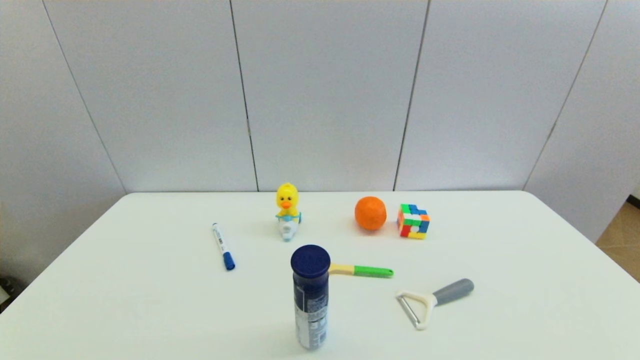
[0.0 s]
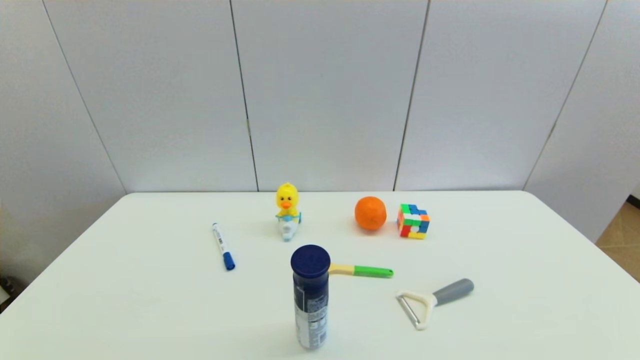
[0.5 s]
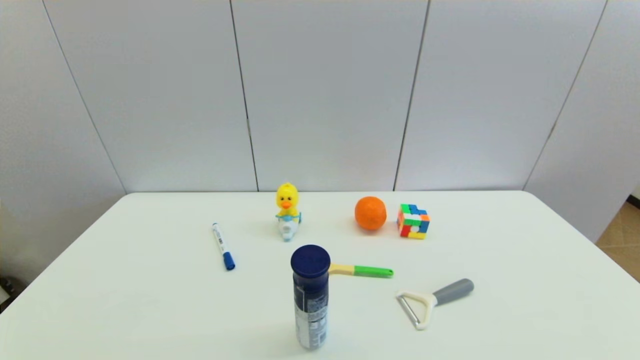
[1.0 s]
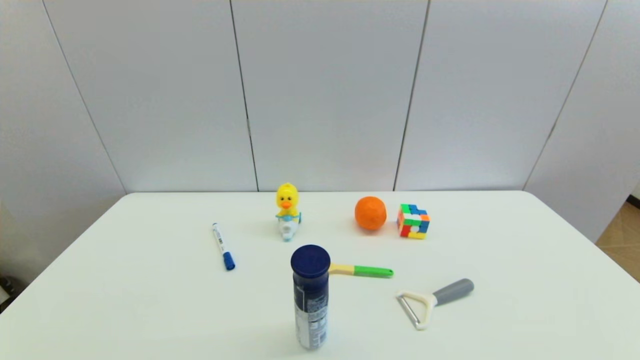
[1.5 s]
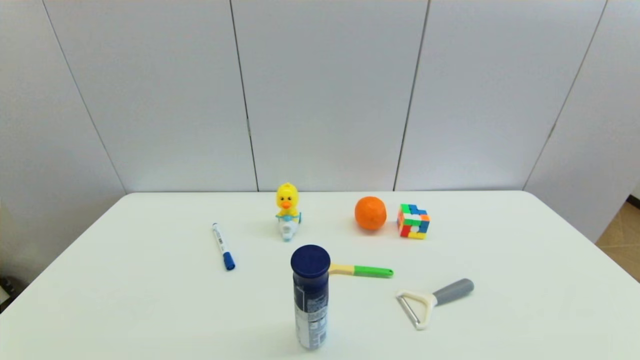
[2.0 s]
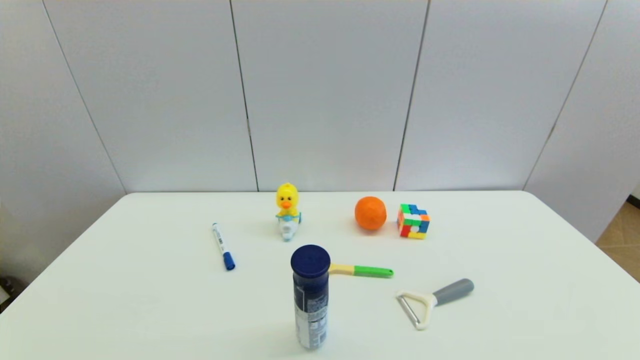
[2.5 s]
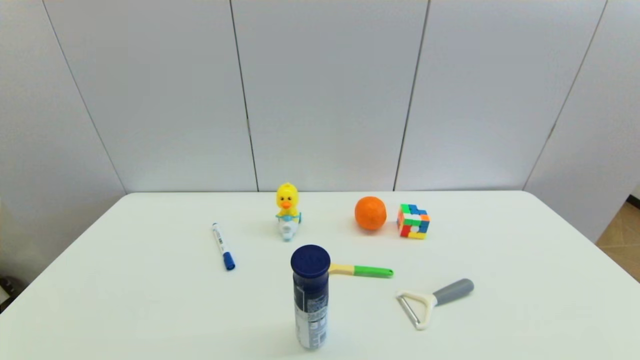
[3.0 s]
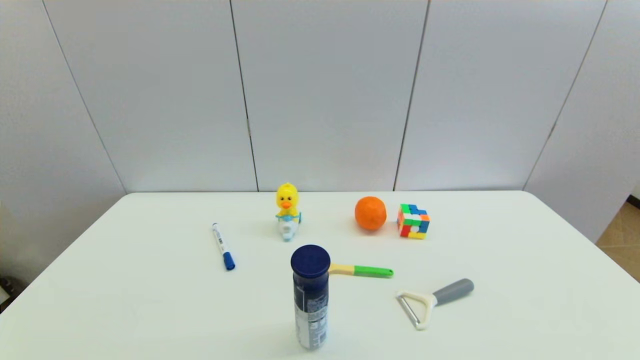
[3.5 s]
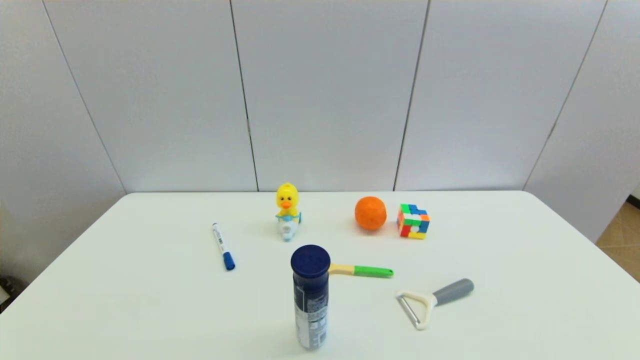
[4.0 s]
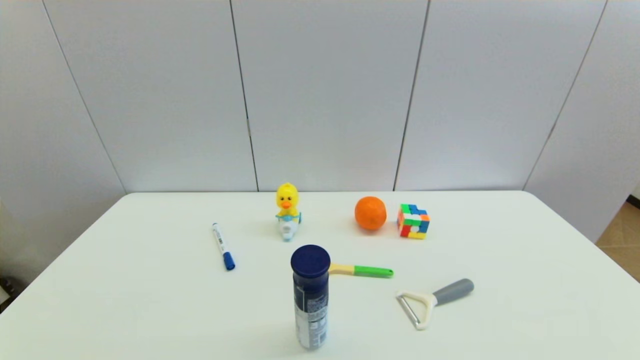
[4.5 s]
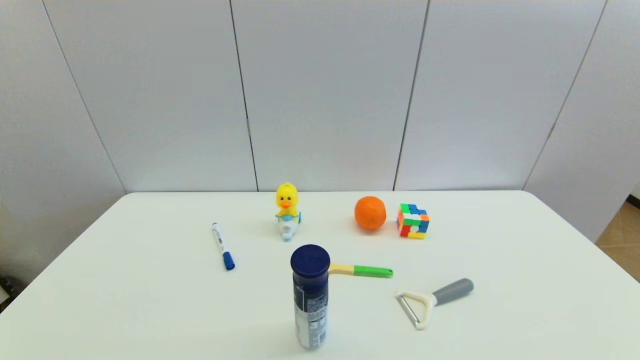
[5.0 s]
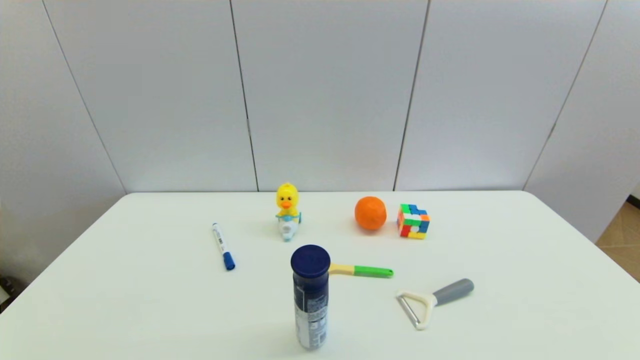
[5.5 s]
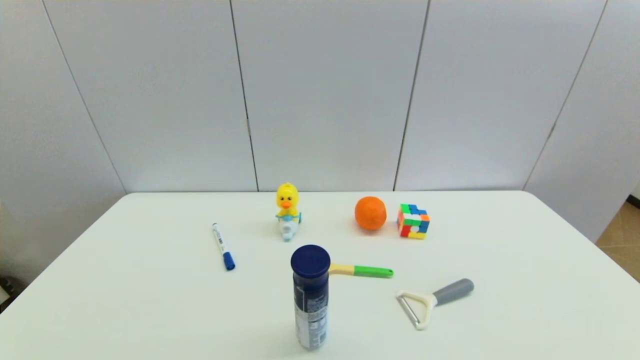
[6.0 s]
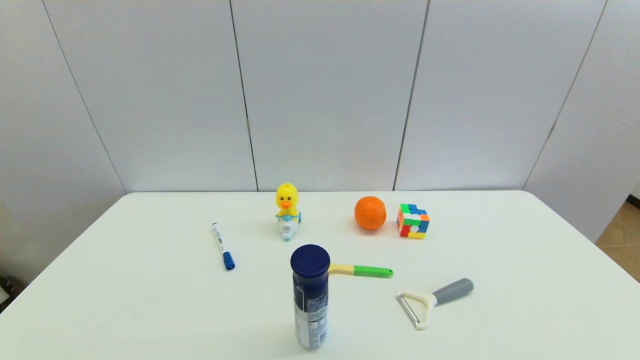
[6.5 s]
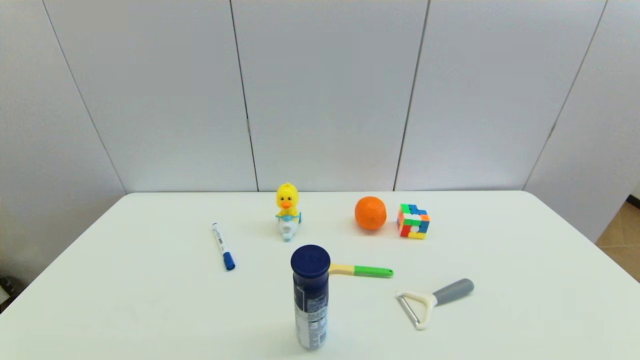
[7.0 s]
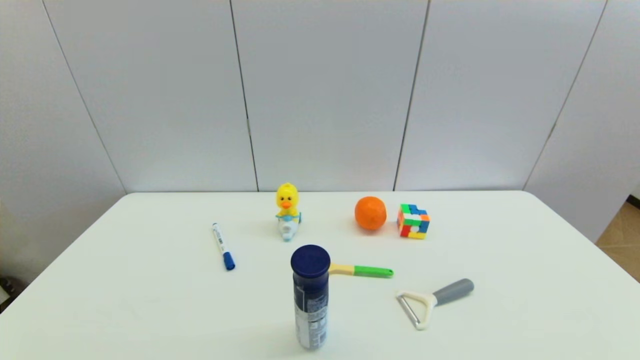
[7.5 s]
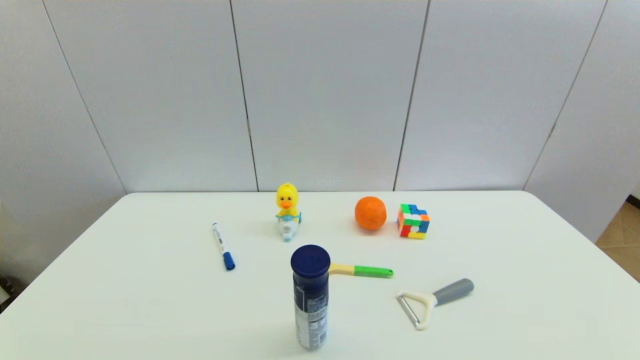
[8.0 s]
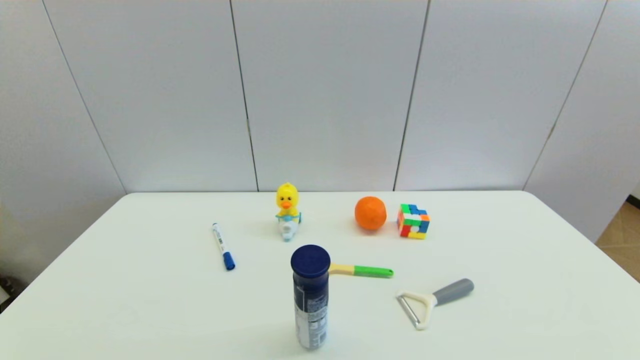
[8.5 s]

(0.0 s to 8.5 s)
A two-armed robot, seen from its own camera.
0.0 s - 8.5 s: The two grippers keep their place.
